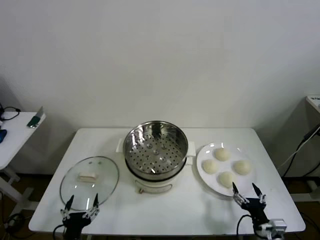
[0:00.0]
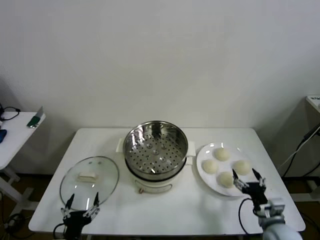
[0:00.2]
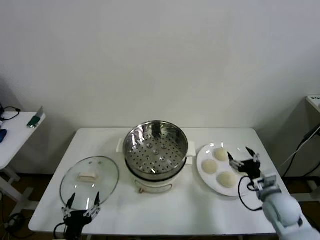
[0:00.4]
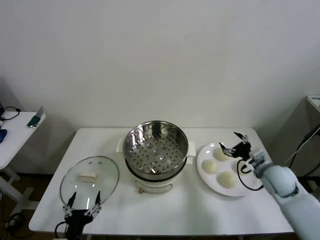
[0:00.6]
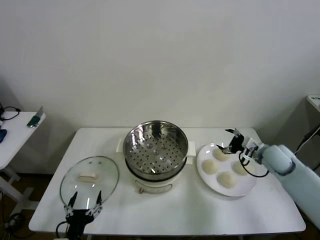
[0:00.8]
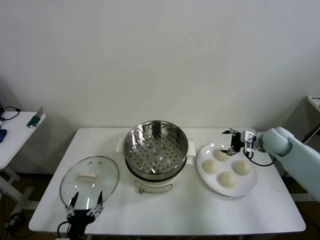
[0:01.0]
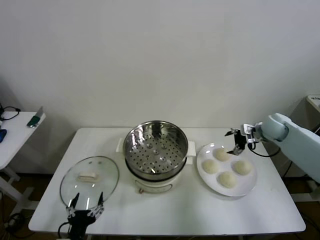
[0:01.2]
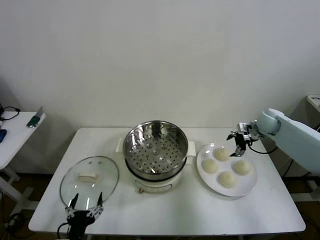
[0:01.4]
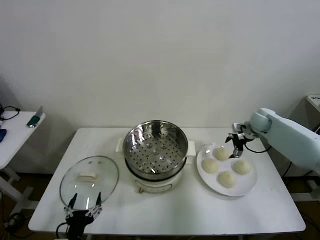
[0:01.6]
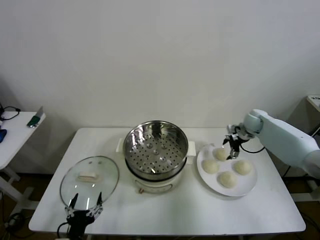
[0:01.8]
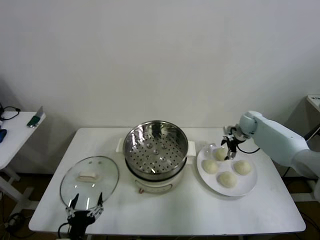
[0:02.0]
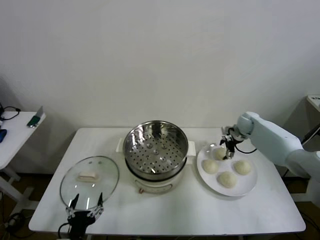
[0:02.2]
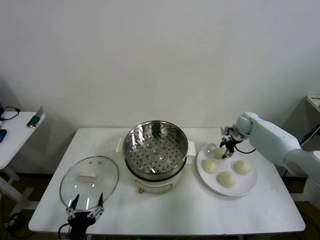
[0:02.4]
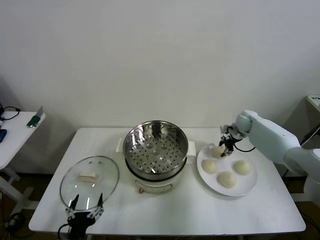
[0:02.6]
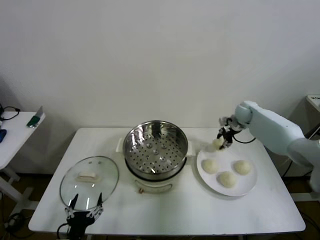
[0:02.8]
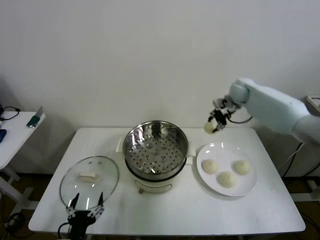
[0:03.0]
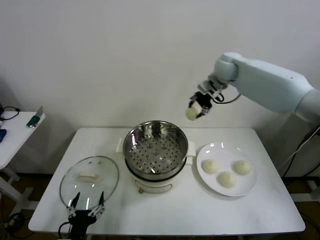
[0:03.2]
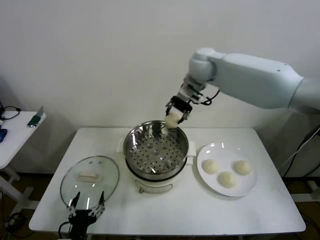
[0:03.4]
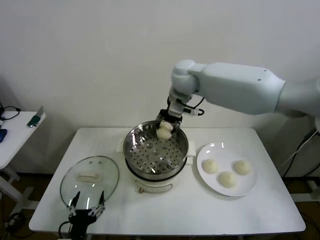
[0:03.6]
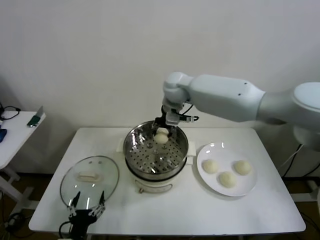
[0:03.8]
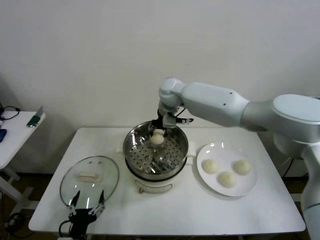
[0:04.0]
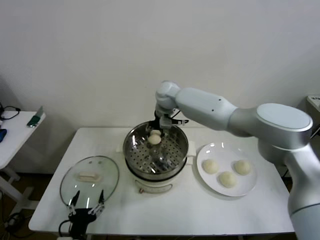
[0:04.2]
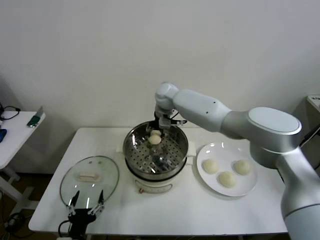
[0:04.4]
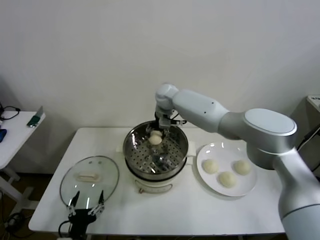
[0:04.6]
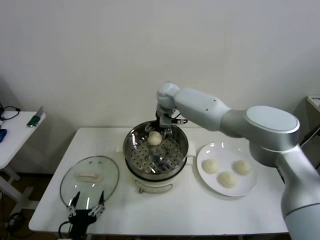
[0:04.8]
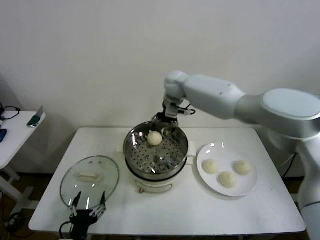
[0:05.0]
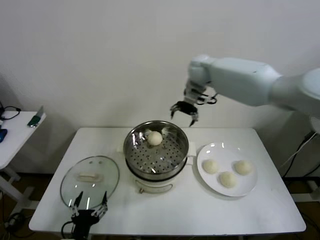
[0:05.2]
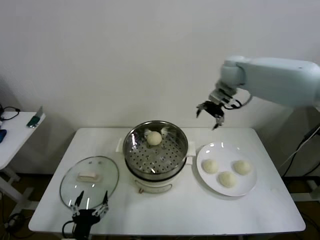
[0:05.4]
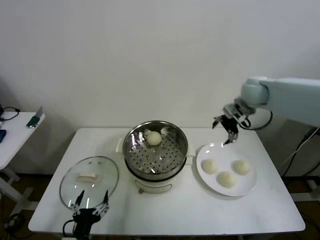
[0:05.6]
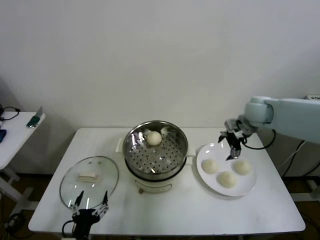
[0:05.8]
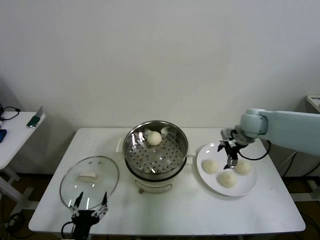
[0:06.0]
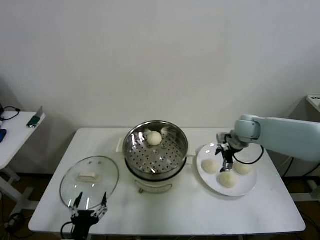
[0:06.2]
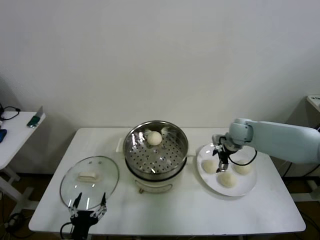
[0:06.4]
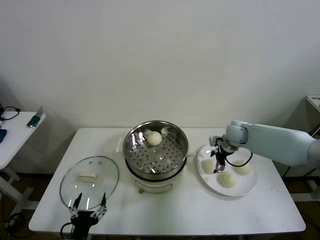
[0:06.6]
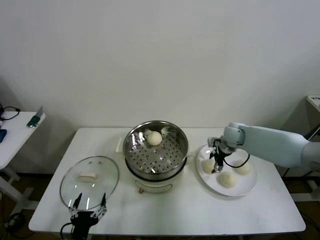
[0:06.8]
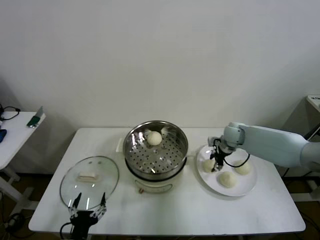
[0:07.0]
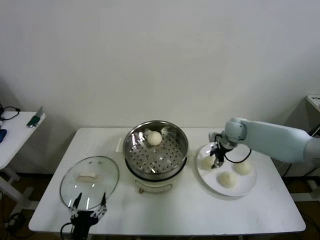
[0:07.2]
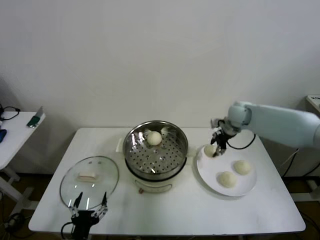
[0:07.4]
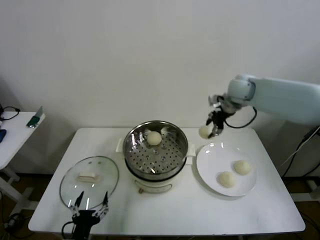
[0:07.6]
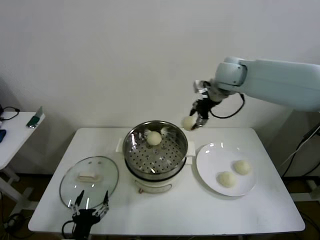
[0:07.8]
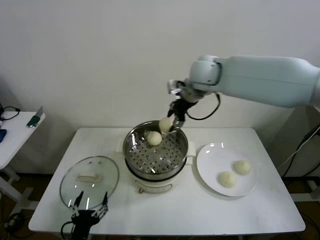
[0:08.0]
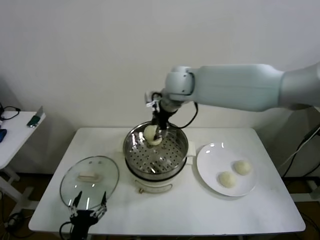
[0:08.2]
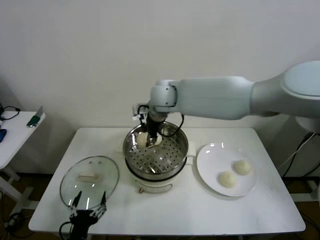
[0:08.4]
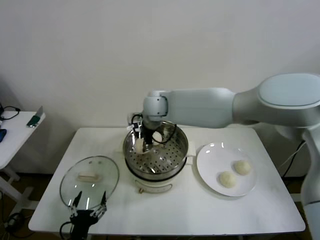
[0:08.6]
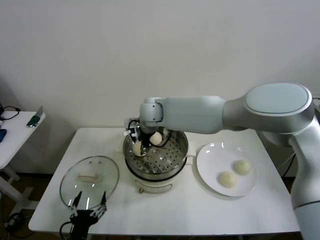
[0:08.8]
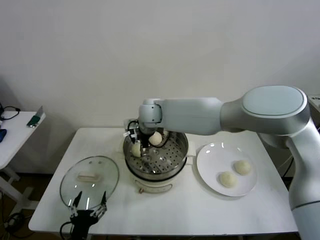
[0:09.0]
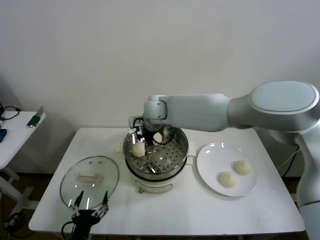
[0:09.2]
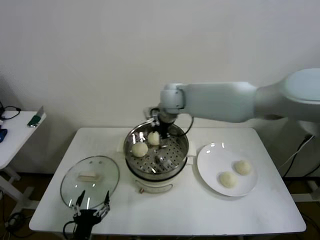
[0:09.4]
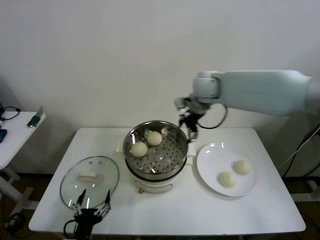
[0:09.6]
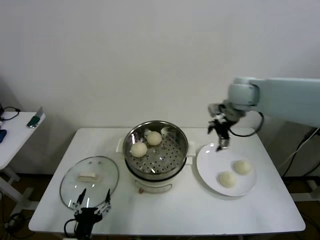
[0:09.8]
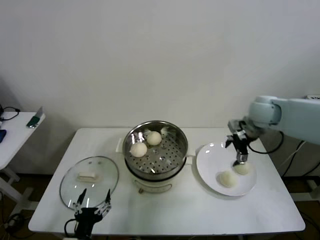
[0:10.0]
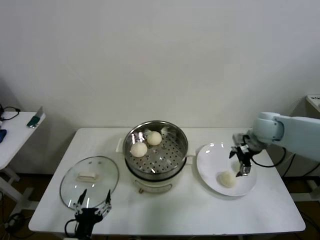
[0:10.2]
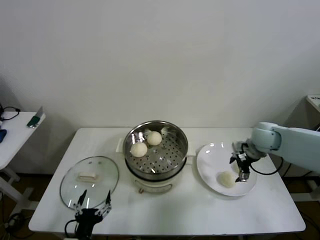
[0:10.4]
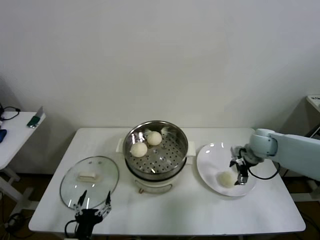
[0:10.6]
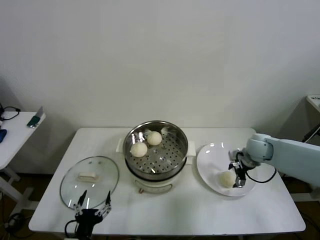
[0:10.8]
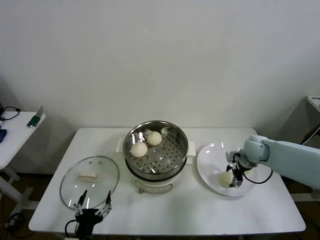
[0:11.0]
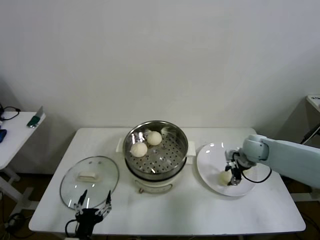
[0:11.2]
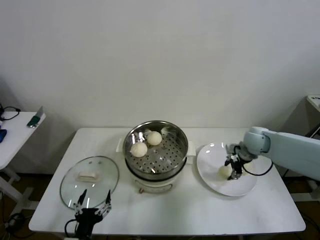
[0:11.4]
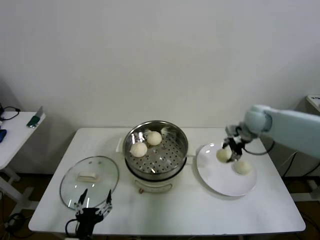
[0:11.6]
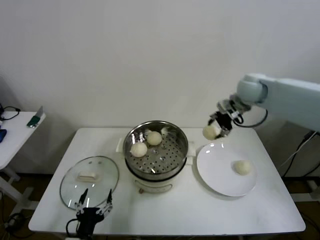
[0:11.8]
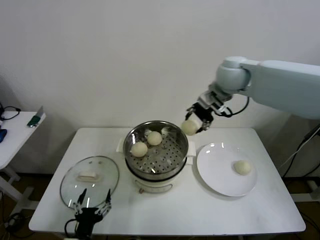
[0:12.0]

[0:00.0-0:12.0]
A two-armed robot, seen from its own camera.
Step, 0:00.0 to 0:02.4: Grasp the baozi in the plate with right gripper.
Step, 0:02.6 to 0:04.6: Place the baozi on the steamer with right gripper.
Step, 0:04.8 to 0:06.8: Grasp the baozi in the plate with right gripper.
Step, 0:07.0 to 0:08.8: Place the baozi on the steamer with right gripper.
Step, 0:09.2 to 0:11.0: Grasp the baozi in the plate with right gripper.
0:01.6 to 0:03.0: The right gripper is displaced upward, to the left and forward by about 15 cm, and closes.
0:03.0 to 0:04.4: The right gripper moves to the left, approximately 30 cm.
0:04.4 to 0:06.0: The right gripper is displaced to the right by some 30 cm, and opens up.
0:06.0 to 0:07.6: The right gripper heads upward and forward, covering some 10 cm, and closes up.
0:07.6 to 0:09.0: The right gripper heads to the left, covering about 30 cm, and opens.
0:09.0 to 0:10.4: The right gripper moves to the right, about 40 cm.
0:10.4 to 0:12.0: The right gripper shifts some 25 cm upward and to the left, and closes its fingers.

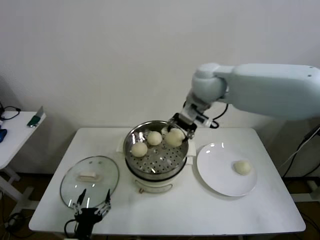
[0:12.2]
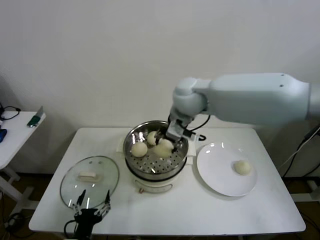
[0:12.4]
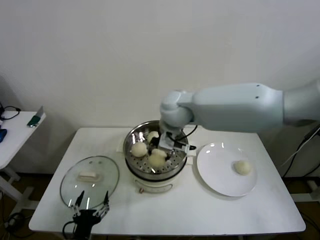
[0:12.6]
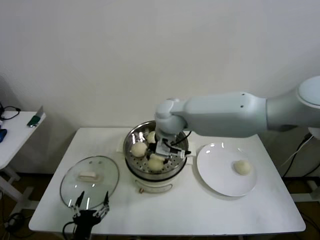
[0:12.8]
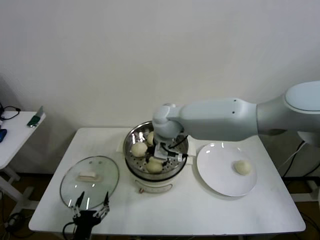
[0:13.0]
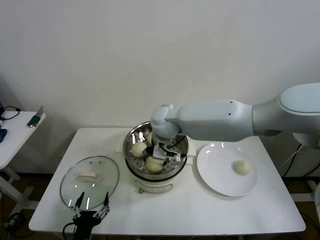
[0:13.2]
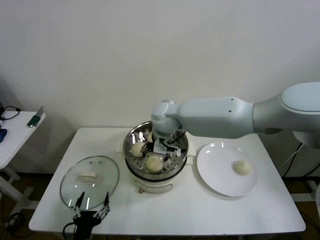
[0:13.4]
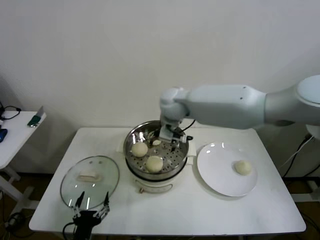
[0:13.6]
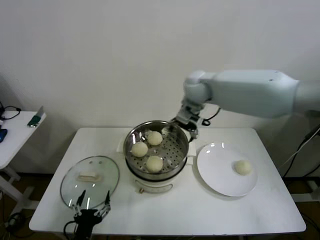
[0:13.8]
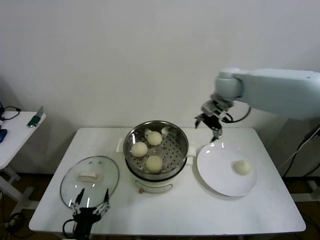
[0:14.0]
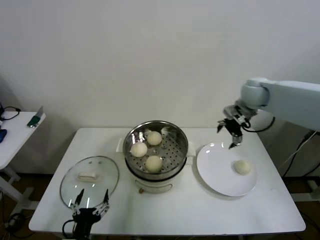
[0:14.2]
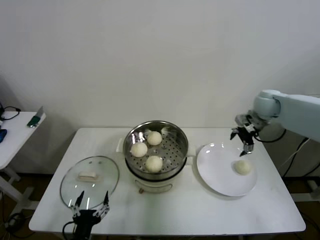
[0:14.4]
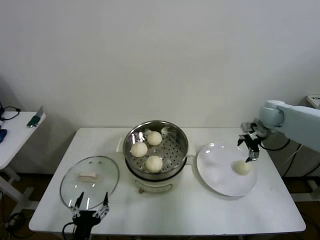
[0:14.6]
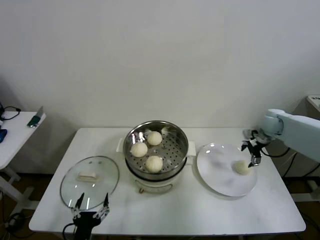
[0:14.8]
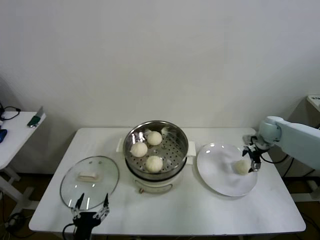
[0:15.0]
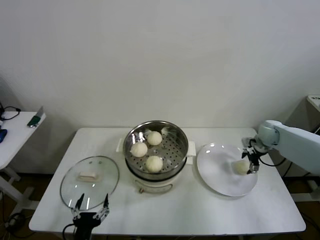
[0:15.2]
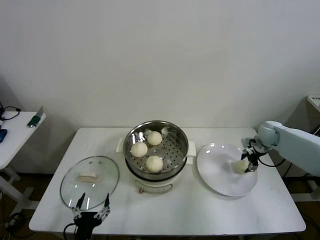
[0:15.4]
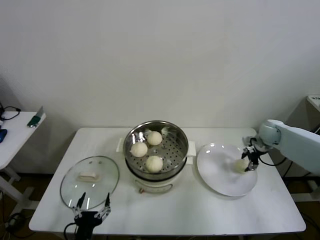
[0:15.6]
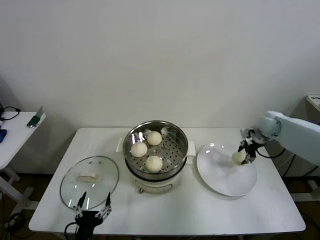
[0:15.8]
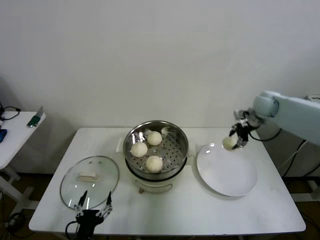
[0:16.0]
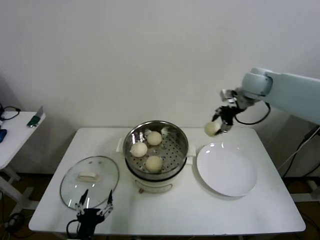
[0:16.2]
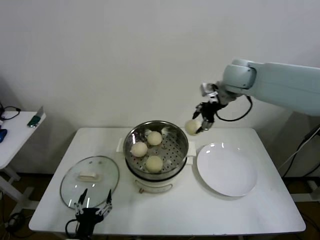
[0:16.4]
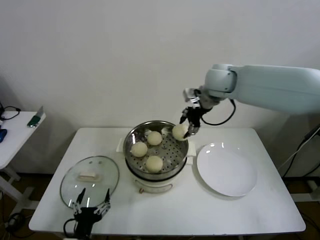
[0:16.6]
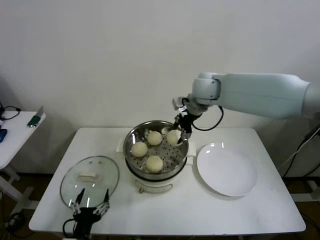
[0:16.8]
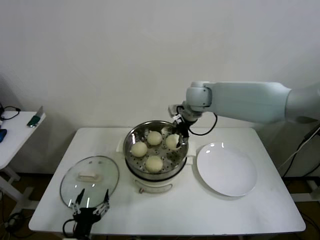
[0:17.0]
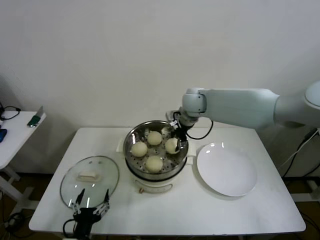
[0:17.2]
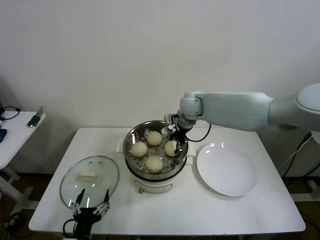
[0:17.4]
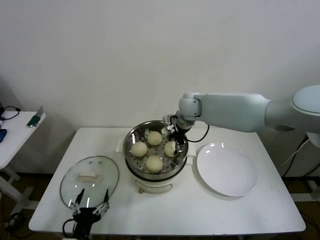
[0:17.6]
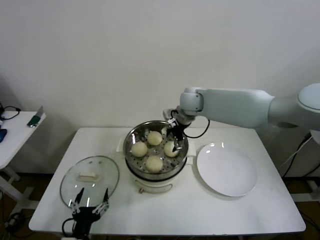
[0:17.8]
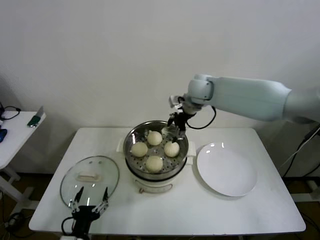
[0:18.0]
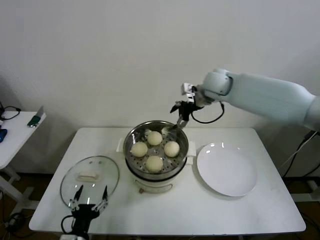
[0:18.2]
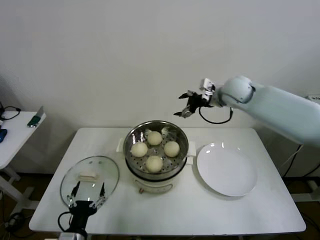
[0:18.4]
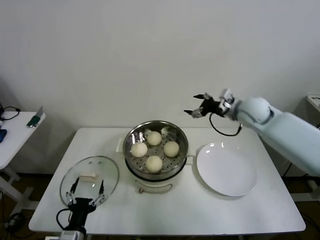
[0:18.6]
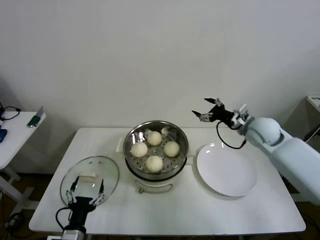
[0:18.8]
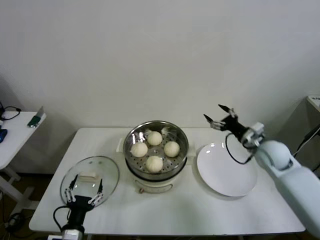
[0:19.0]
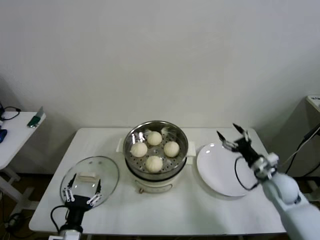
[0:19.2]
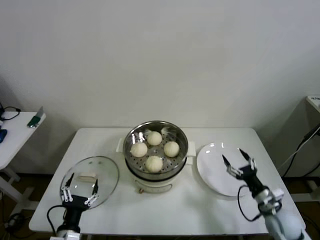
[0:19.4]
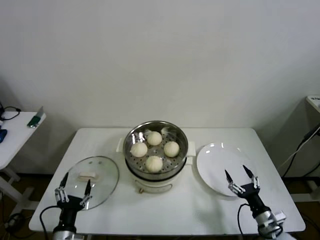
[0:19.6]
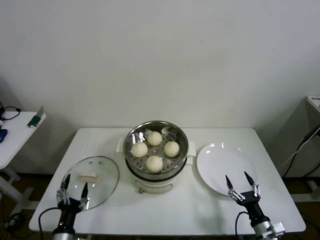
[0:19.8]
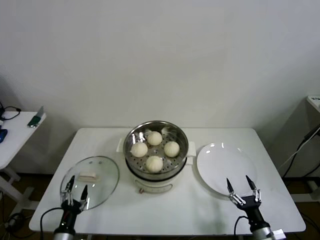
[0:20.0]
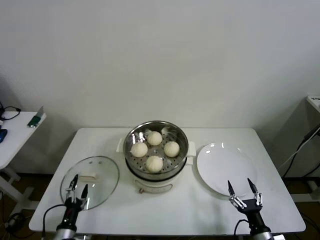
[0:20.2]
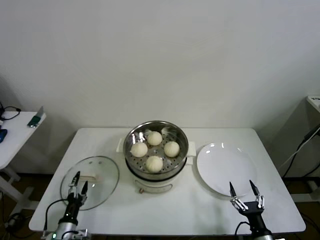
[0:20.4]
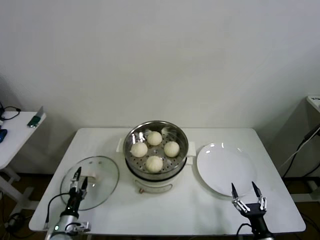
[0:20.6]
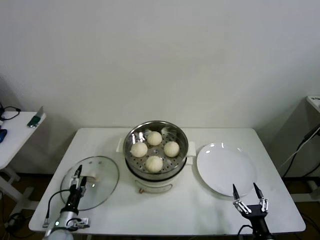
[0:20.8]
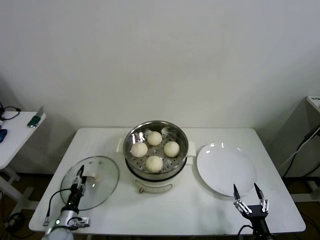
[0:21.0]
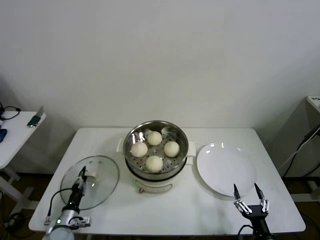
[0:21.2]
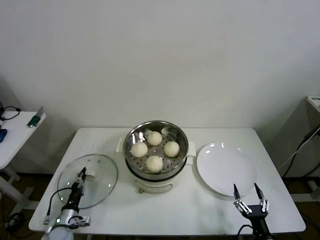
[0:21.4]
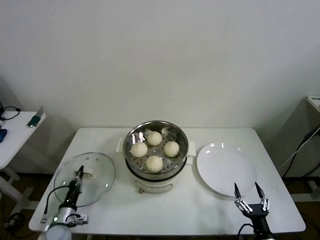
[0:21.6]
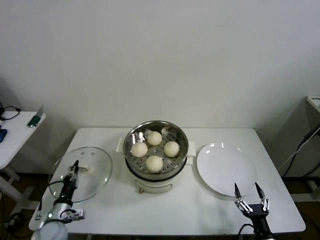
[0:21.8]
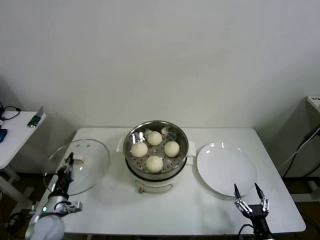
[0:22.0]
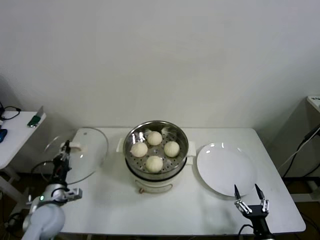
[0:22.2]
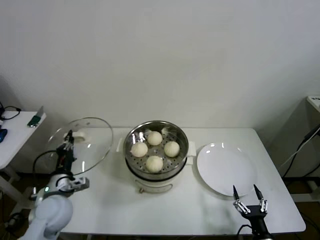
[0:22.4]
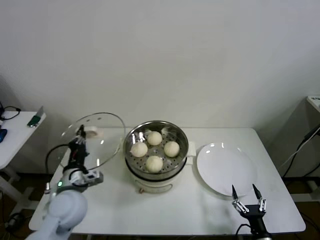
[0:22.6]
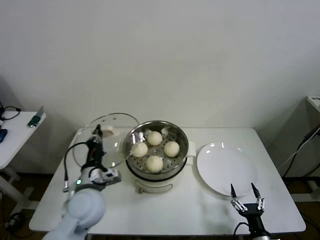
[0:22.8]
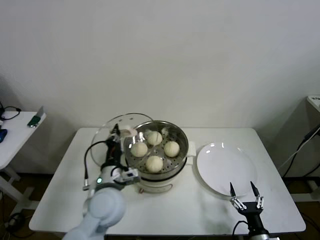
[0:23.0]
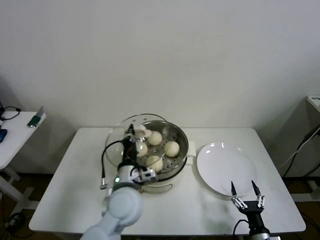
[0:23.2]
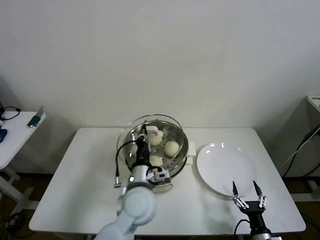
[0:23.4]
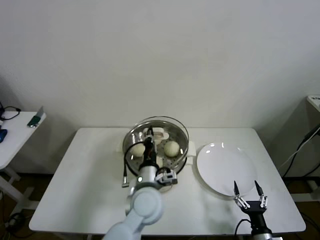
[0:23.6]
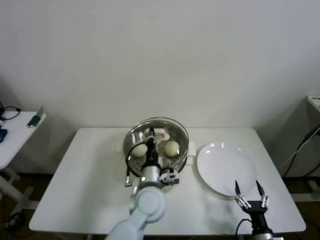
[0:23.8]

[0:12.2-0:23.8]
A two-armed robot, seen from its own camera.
Step, 0:12.2 to 0:13.2: Place the baozi on the steamer with right gripper.
Step, 0:13.4 to 0:15.2: Grasp the baozi in the plate with right gripper.
Step, 0:15.4 to 0:17.4: Place the baozi on the steamer with right gripper.
Step, 0:17.8 to 0:21.4: Grasp the pot lid with left gripper.
0:12.2 to 0:13.6: The right gripper shifts roughly 15 cm to the left and downward, and opens up.
0:13.6 to 0:15.0: The right gripper shifts some 40 cm to the right.
0:15.0 to 0:16.6: The right gripper travels to the left and upward by about 35 cm, and closes.
0:16.6 to 0:18.0: The right gripper goes roughly 10 cm downward and to the left, and opens.
0:18.0 to 0:19.4: The right gripper goes about 50 cm downward, backward and to the right.
0:19.4 to 0:21.0: The right gripper is displaced backward and downward by some 15 cm. Meanwhile the left gripper moves downward, forward and to the left, roughly 20 cm.
0:21.0 to 0:22.4: The left gripper heads upward, covering about 20 cm, and closes.
0:22.4 to 0:23.8: The left gripper travels to the right by about 30 cm.
